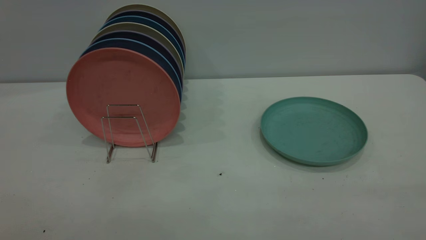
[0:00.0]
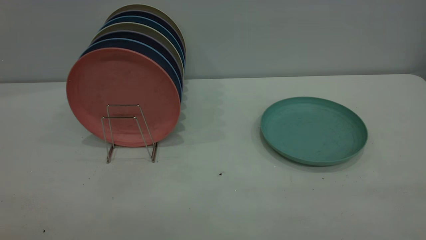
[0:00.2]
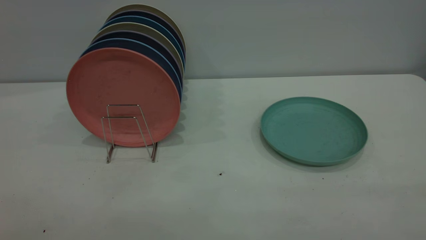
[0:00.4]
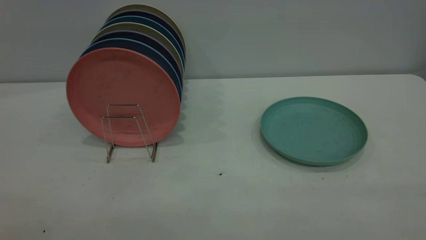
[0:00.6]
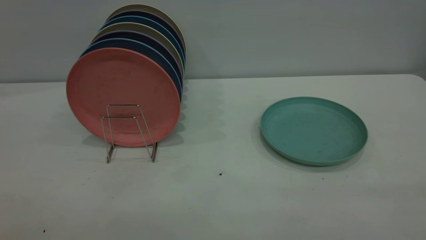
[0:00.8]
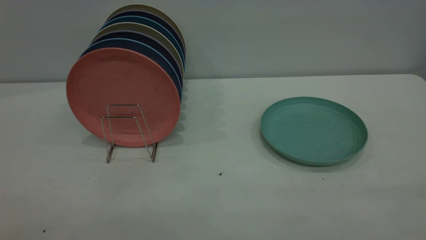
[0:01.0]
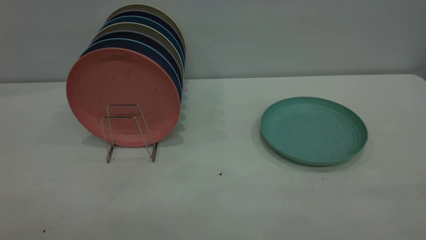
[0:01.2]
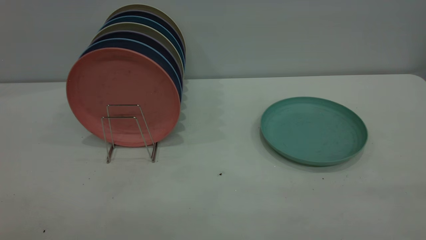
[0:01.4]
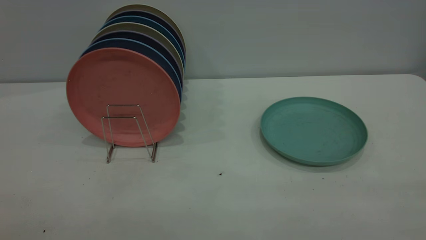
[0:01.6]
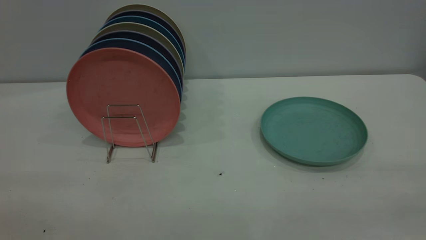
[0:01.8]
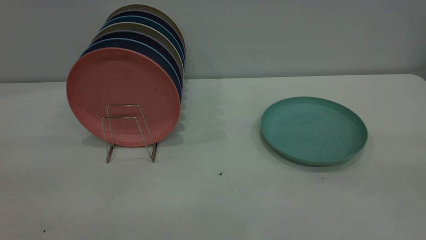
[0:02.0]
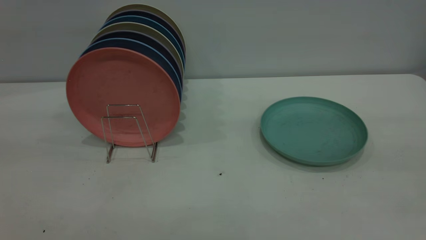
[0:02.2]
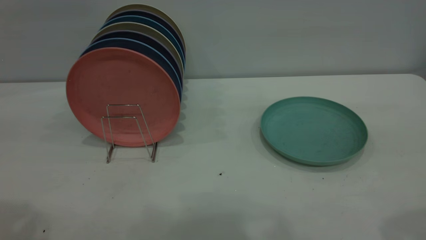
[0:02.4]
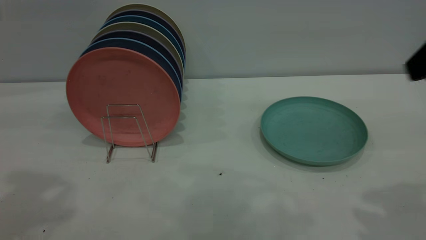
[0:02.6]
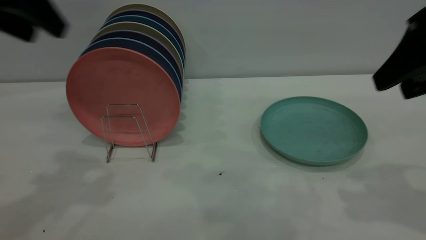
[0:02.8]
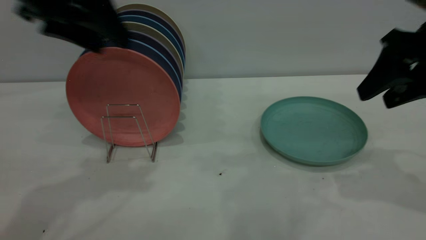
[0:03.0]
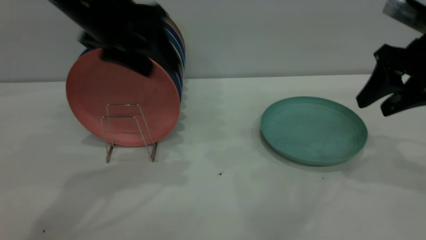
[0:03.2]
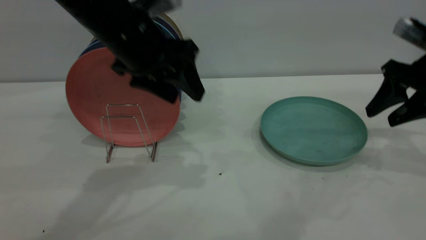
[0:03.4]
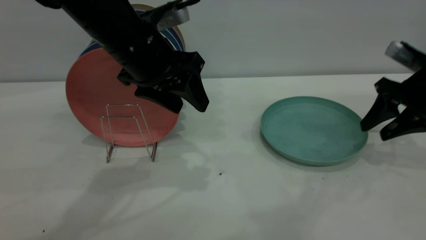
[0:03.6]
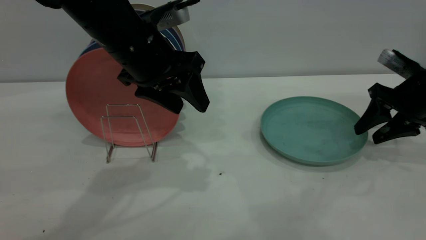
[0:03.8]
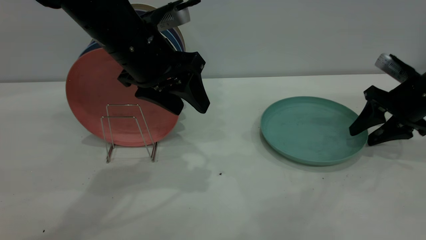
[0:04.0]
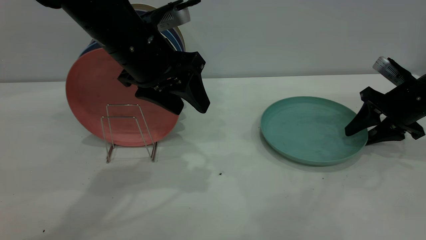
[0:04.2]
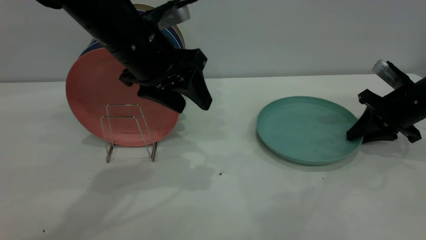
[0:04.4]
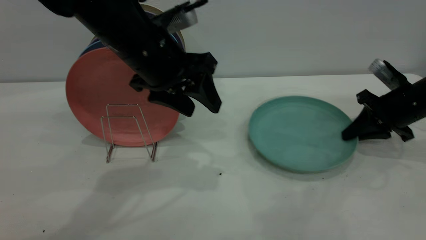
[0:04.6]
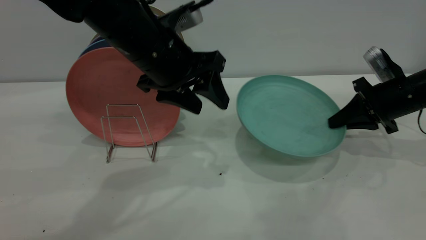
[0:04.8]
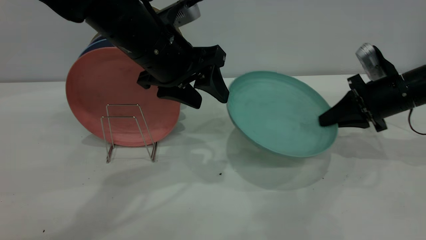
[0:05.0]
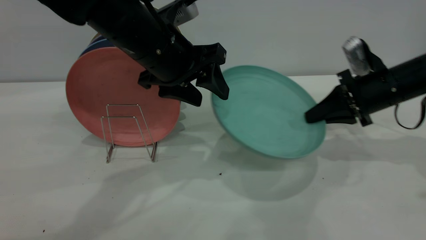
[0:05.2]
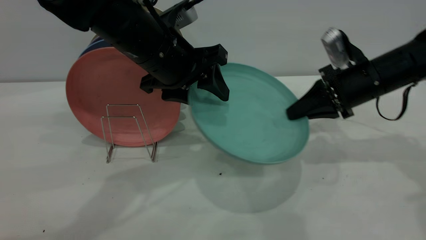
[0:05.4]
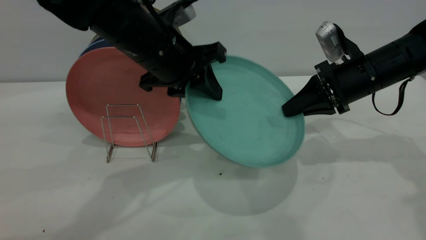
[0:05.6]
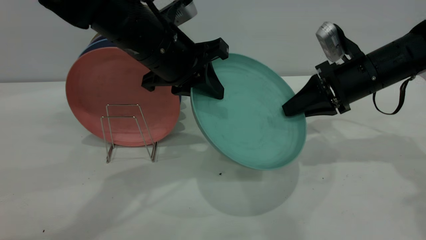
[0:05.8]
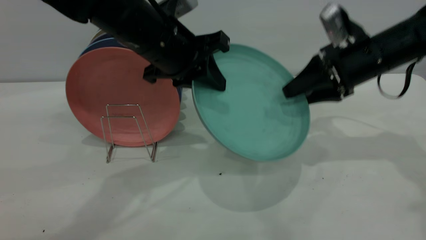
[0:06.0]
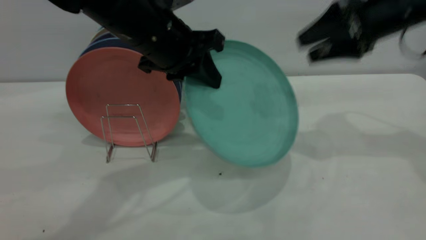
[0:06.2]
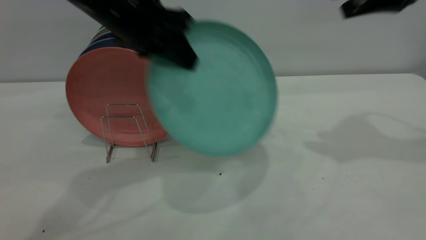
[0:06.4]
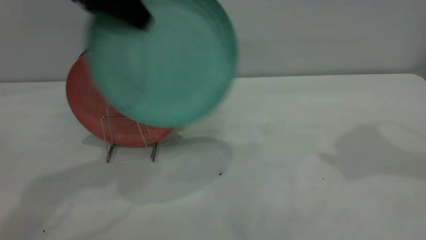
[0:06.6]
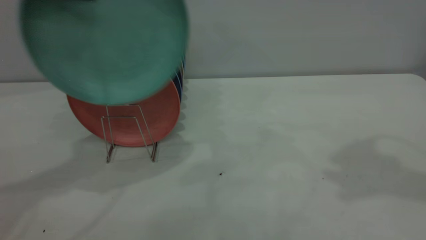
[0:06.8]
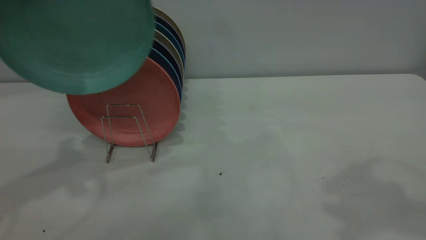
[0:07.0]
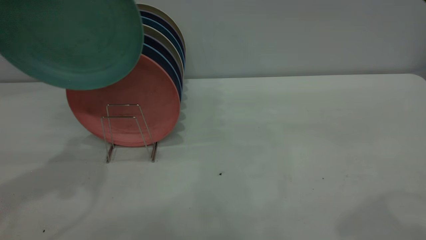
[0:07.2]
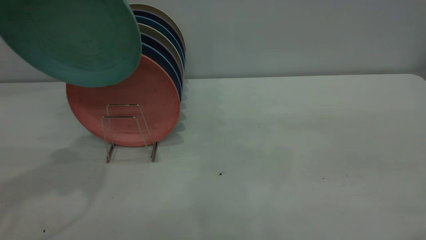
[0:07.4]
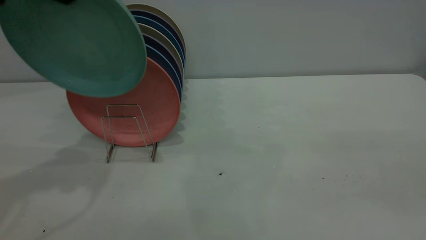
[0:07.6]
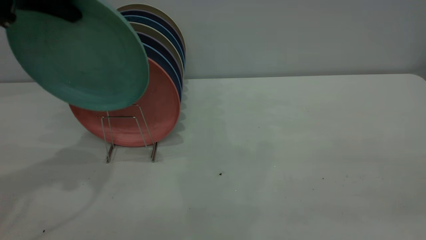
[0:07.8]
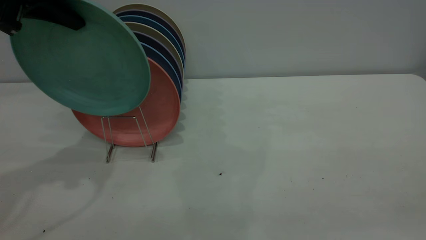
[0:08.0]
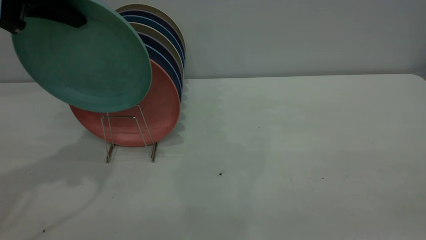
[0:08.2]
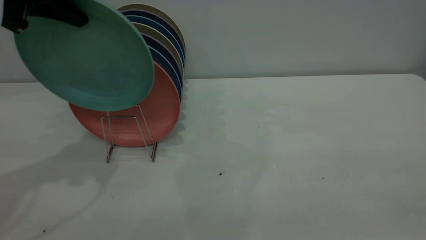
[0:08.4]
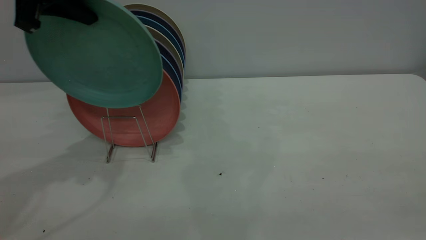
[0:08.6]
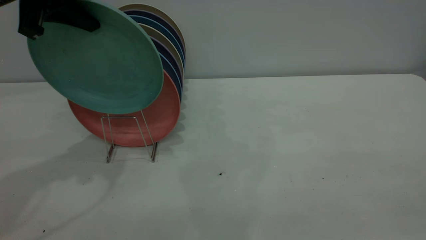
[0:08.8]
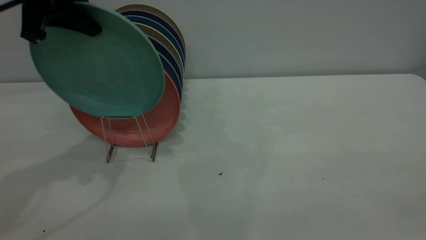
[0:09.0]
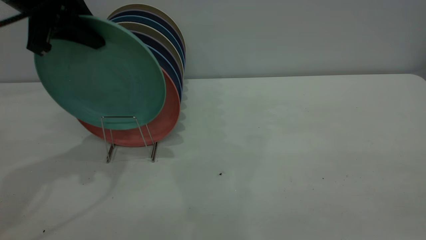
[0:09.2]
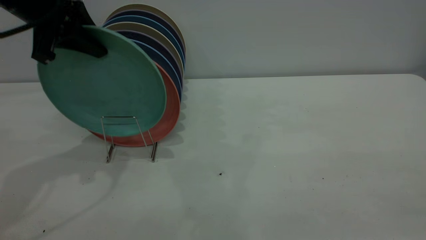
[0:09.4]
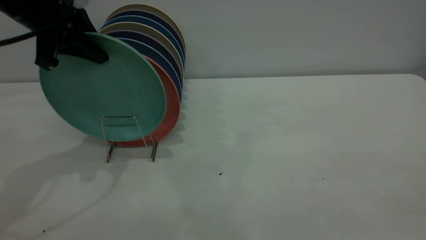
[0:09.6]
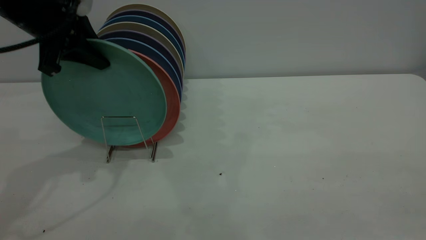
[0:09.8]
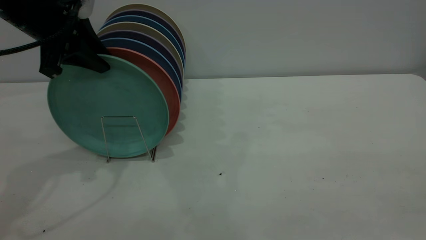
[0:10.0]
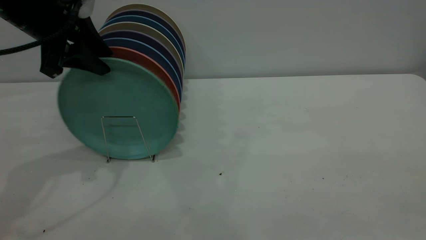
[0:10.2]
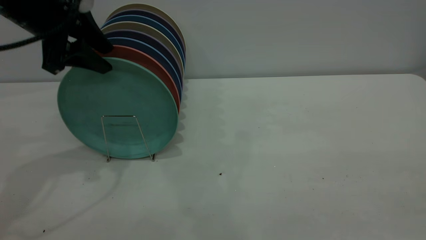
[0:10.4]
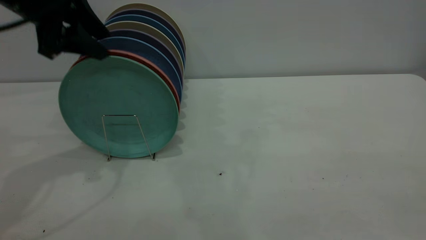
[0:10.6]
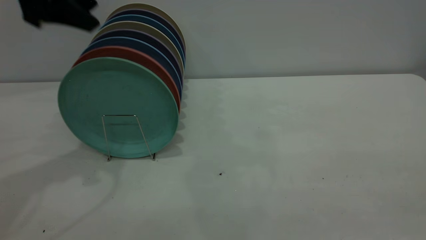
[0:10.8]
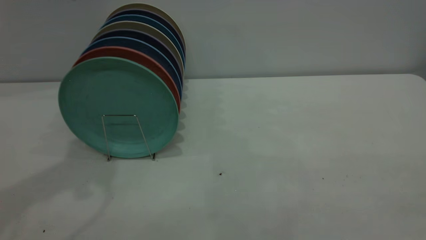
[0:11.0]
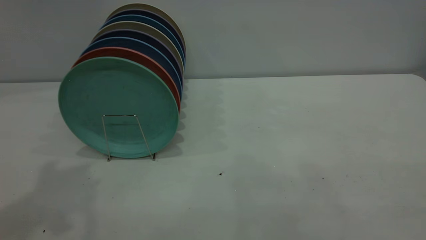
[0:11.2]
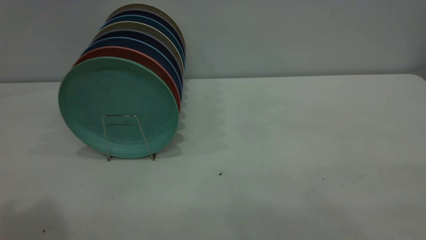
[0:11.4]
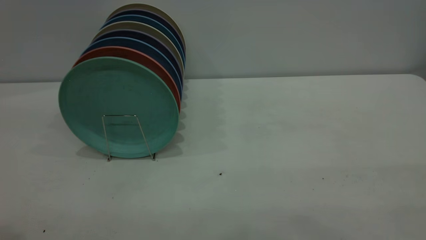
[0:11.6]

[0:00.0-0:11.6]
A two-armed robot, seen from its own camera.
Task of the whole recording: the right gripper grasp the green plate, the right gripper pass the green plate to the left gripper, and the left gripper place the green plate on the plate rack.
Step, 0:00.0 to 0:04.6: Pick up the plate with the right gripper.
Step, 0:04.8 to 0:06.4: Pass the plate from the right gripper to the left gripper.
Step, 0:06.6 to 0:10.8: Place the plate on the shelf.
0:00.0 to 0:01.4: Both grippers stay about where they are.
0:01.4 to 0:02.8: The grippers both shift forward by about 30 cm.
0:02.8 to 0:04.4: The right gripper is displaced downward and forward by roughly 25 cm, and closes its fingers. The left gripper is displaced to the right and downward by roughly 15 cm.
0:04.4 to 0:05.8: The left gripper closes, while the right gripper is displaced to the left and upward by some 10 cm.
0:05.8 to 0:07.2: The left gripper travels to the left and upward by roughly 25 cm, while the right gripper travels upward and backward by approximately 35 cm, and opens, then closes once more.
0:07.2 to 0:08.8: The left gripper shifts some 5 cm downward.
0:08.8 to 0:10.2: The left gripper shifts approximately 5 cm downward, and opens up.
0:10.2 to 0:11.6: The left gripper goes roughly 35 cm backward and upward.
